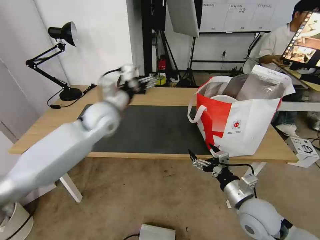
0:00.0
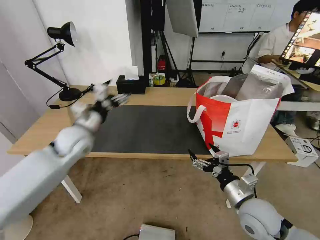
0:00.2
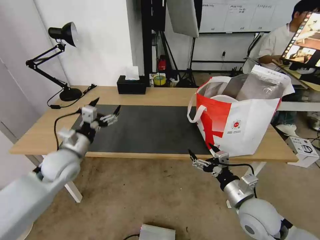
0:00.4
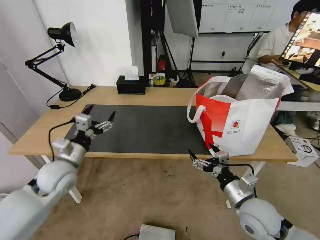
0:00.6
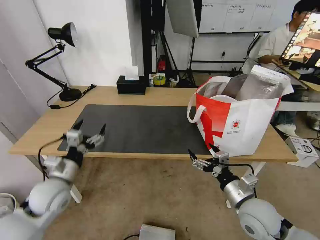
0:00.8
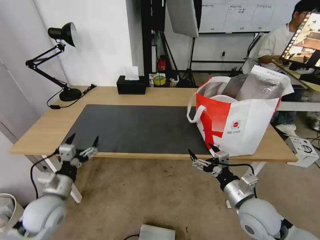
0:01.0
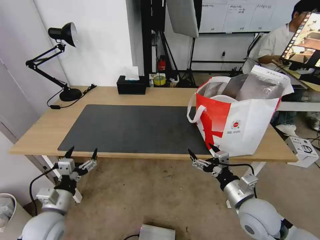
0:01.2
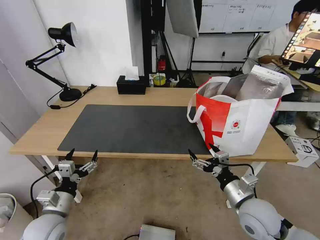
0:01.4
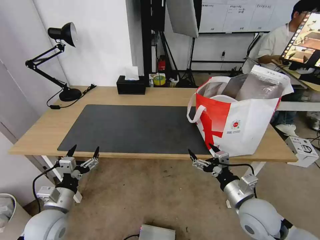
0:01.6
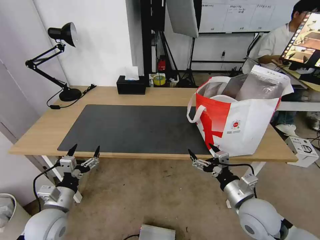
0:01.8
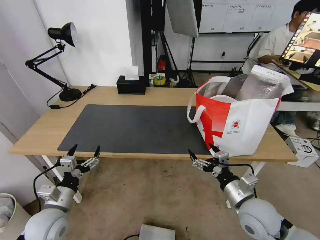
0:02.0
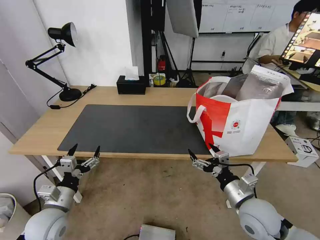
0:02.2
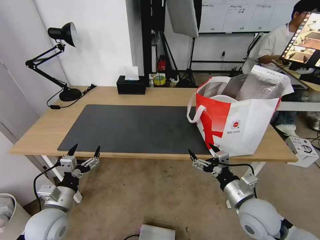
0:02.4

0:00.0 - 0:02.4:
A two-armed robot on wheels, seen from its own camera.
Task of the whole recording: Pick up the trash from the table and place it into the takeout bag.
0:00.0 - 0:01.2: The left gripper is displaced backward, downward and to the left by about 35 cm.
0:01.2 - 0:02.4: Both grippers stay put.

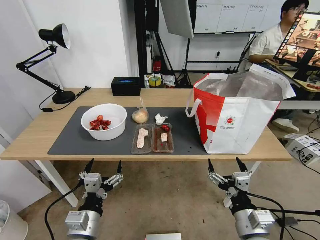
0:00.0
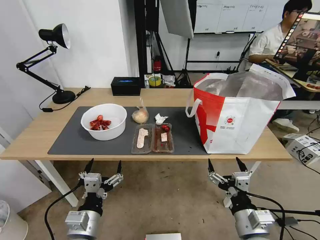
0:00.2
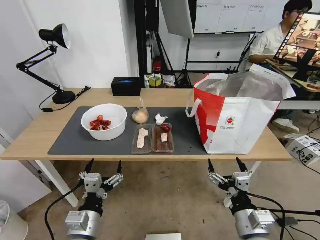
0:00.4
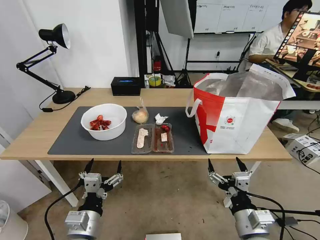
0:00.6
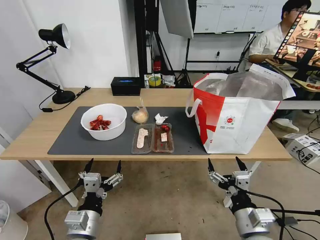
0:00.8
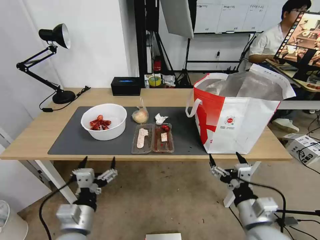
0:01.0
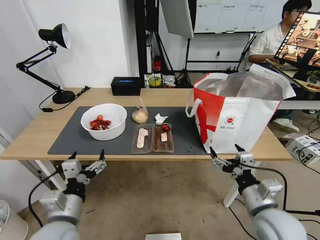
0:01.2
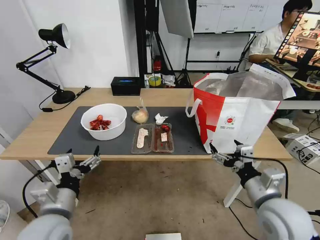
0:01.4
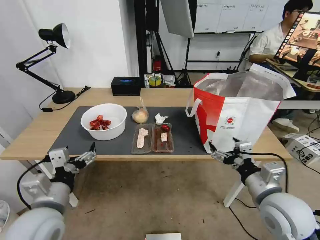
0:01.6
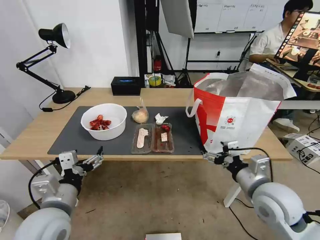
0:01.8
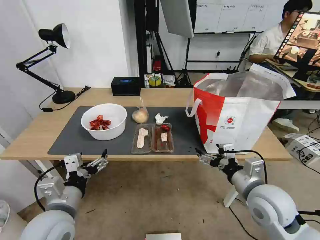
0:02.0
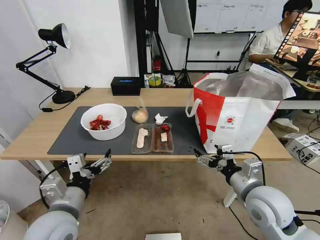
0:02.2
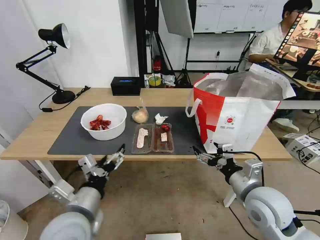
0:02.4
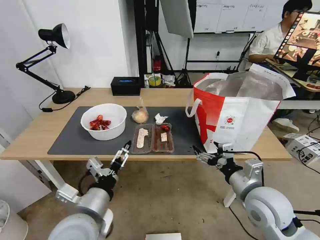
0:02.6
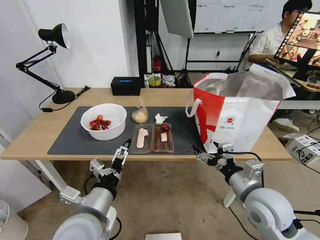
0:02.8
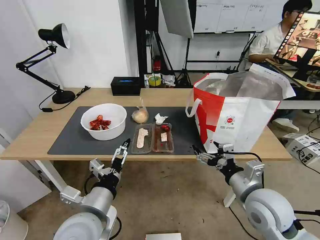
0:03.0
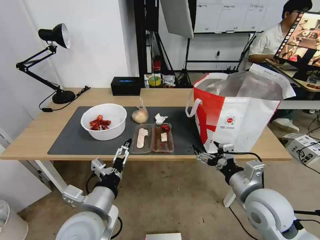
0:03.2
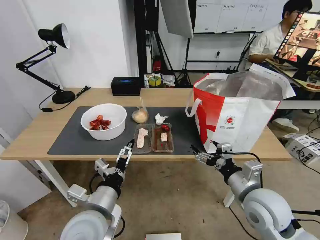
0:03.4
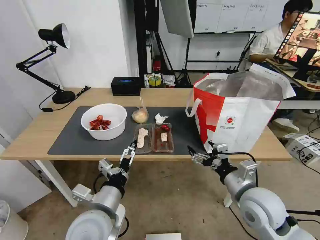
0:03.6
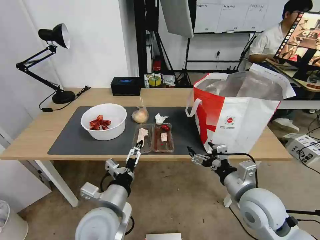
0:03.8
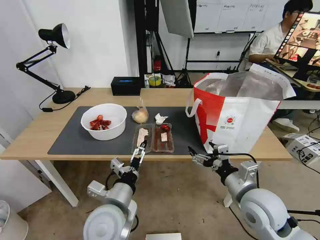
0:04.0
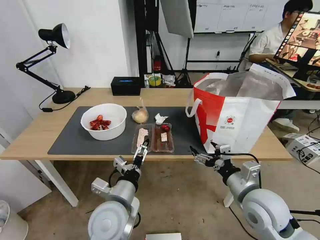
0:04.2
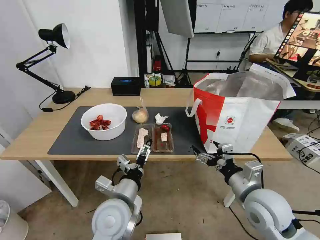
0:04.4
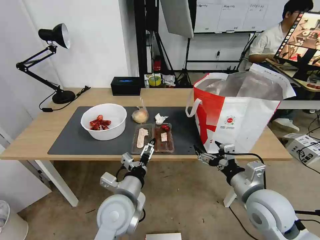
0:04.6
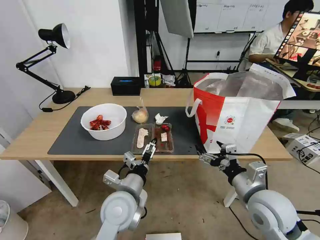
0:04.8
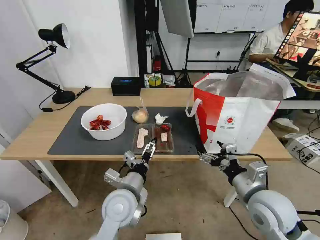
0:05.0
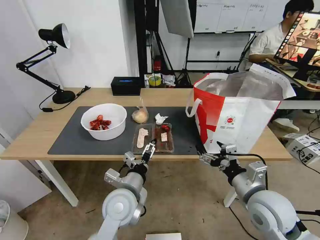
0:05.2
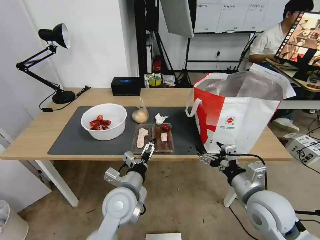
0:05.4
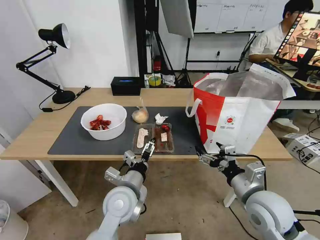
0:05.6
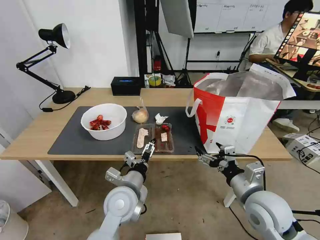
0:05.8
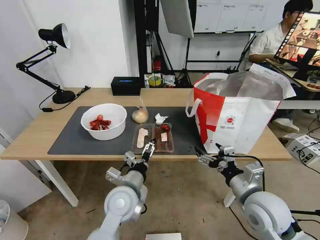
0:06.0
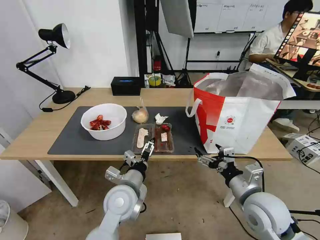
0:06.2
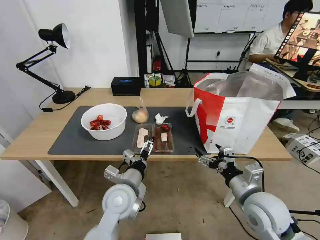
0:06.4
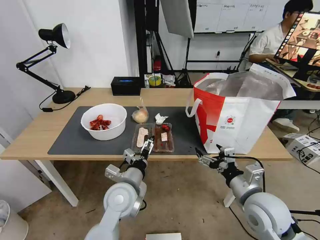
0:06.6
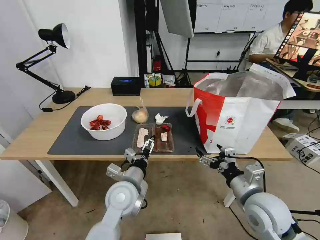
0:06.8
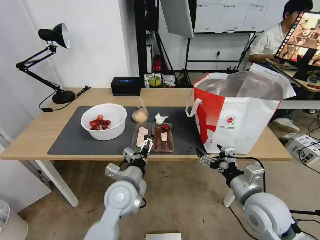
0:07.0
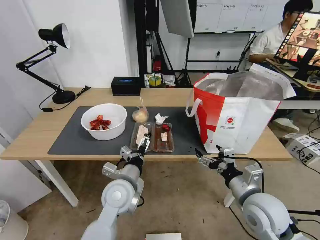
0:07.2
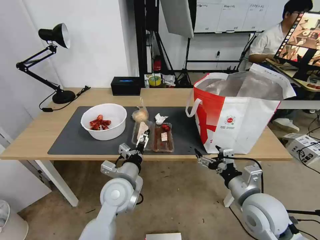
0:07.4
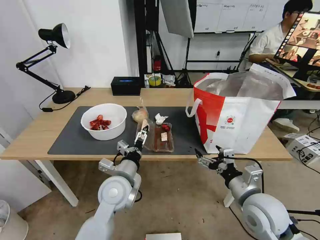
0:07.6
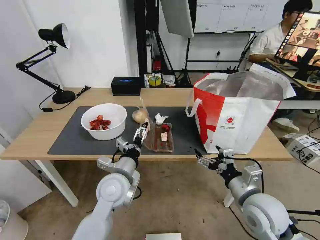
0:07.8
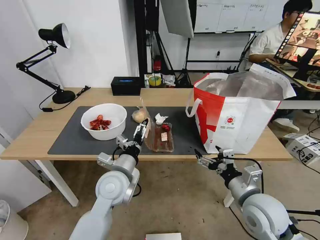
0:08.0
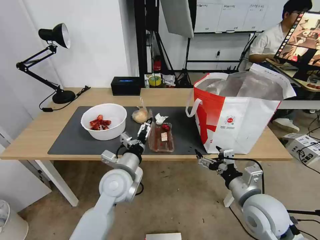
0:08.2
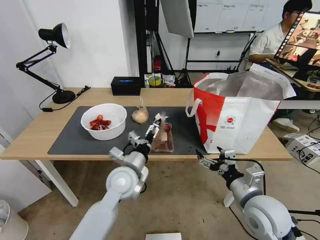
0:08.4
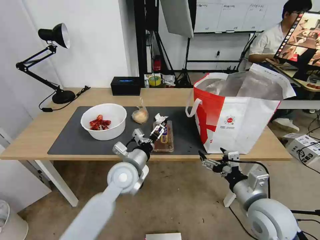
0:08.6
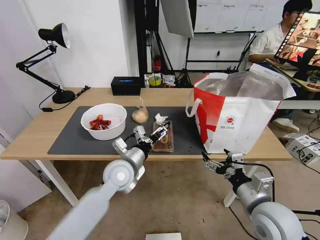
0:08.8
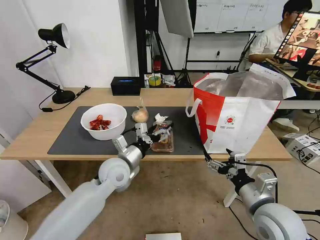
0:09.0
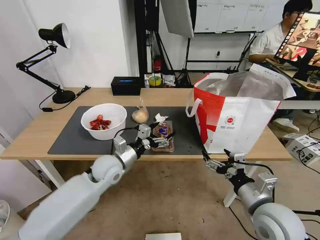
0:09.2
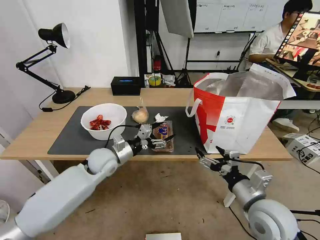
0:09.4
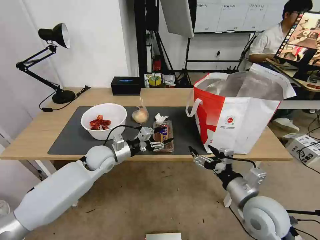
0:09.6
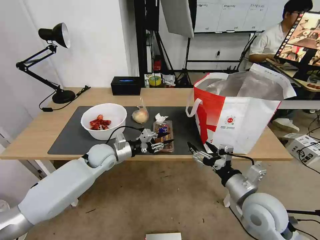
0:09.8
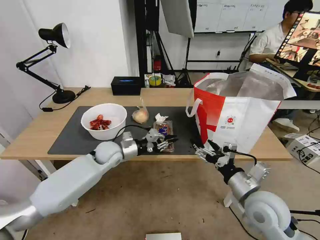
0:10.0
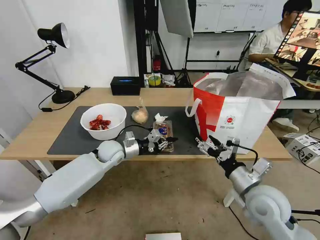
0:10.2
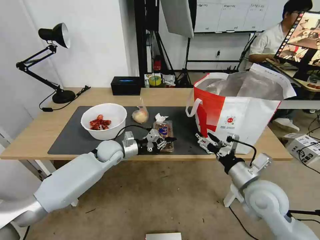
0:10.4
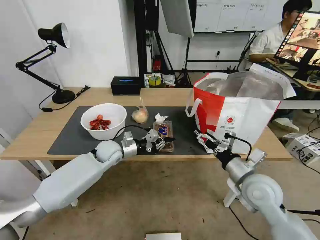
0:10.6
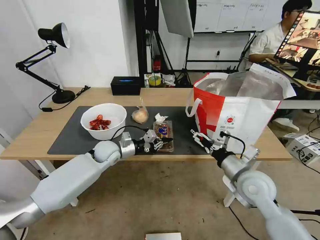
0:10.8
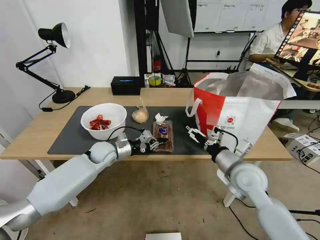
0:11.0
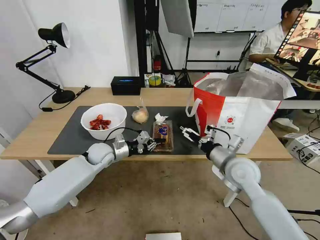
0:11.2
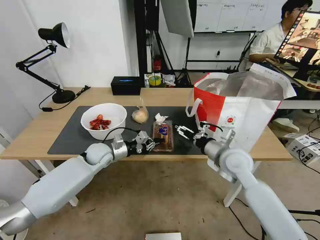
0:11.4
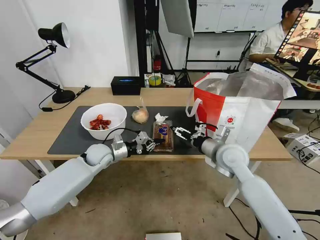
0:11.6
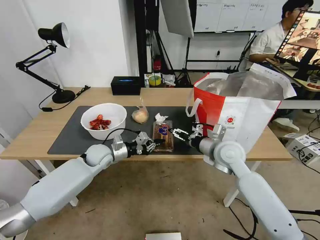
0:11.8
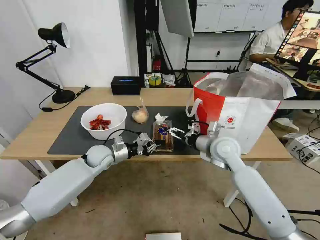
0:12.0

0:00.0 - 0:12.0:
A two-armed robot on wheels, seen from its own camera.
Task of the whole recording: Pick up the trash from the table and place it into the takeout bag.
0:01.6 - 0:03.0: The left gripper shifts about 10 cm to the right.
0:03.0 - 0:04.4: The left gripper shifts about 5 cm to the right.
0:04.4 - 0:06.0: The left gripper ends up about 5 cm from where it was.
0:06.0 - 0:07.6: The grippers move only a little.
0:07.6 - 0:09.0: The left gripper heads forward, covering approximately 5 cm.
0:09.0 - 0:10.4: The left gripper moves forward, about 10 cm, and closes. Meanwhile the right gripper shifts some 5 cm forward.
0:10.4 - 0:12.0: The right gripper shifts some 15 cm forward and to the left.

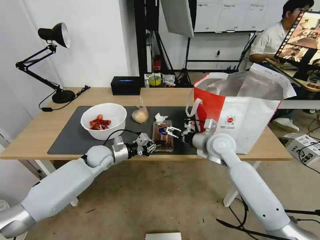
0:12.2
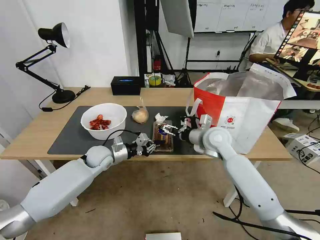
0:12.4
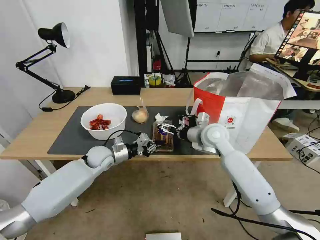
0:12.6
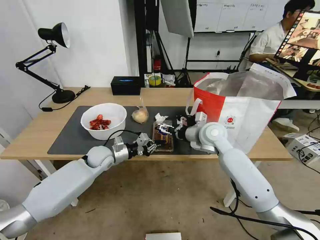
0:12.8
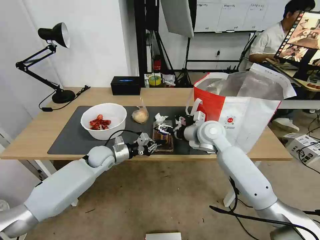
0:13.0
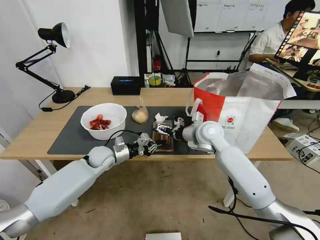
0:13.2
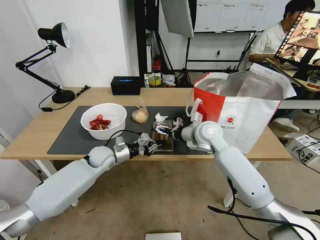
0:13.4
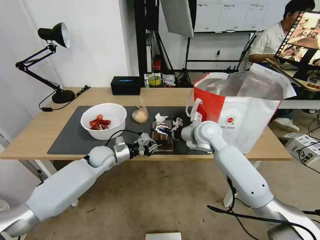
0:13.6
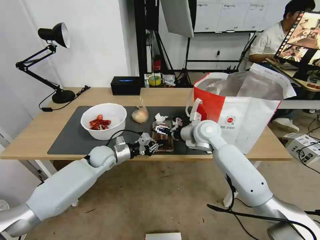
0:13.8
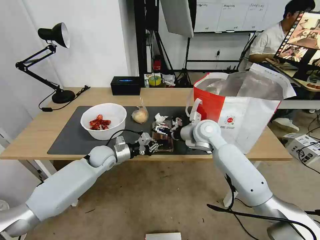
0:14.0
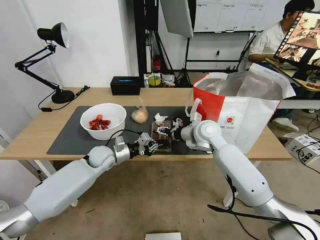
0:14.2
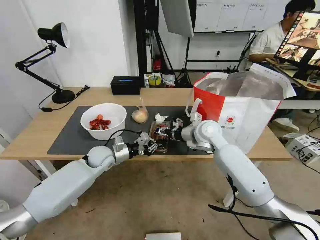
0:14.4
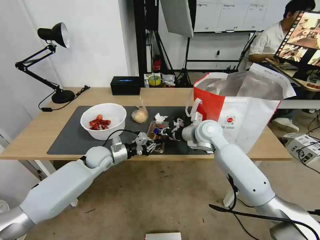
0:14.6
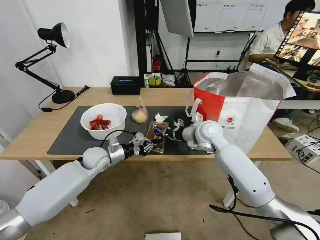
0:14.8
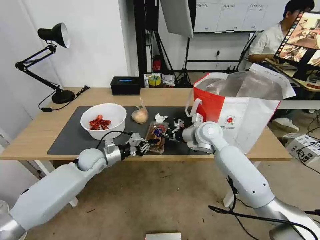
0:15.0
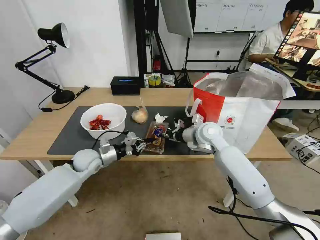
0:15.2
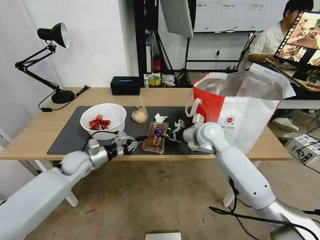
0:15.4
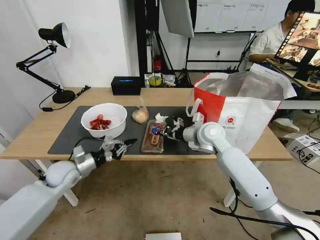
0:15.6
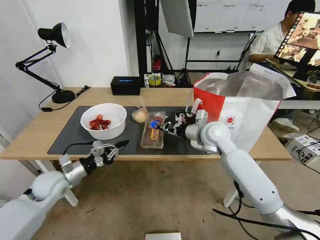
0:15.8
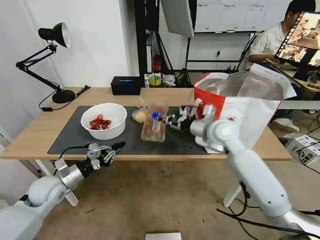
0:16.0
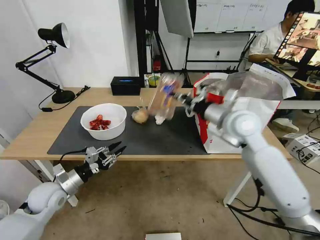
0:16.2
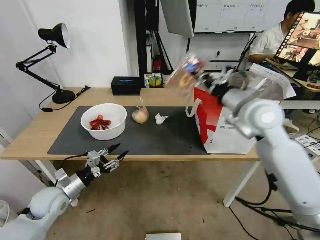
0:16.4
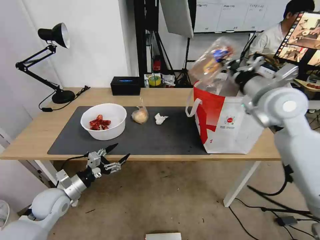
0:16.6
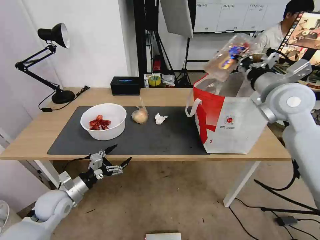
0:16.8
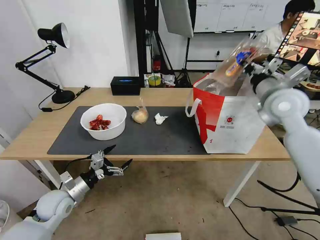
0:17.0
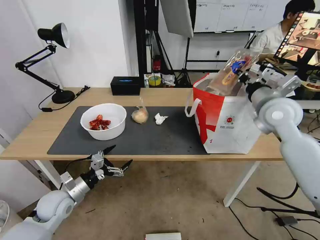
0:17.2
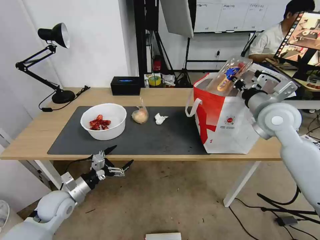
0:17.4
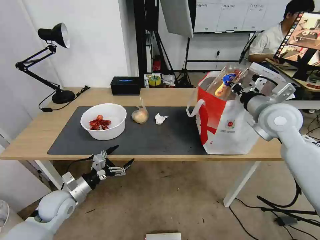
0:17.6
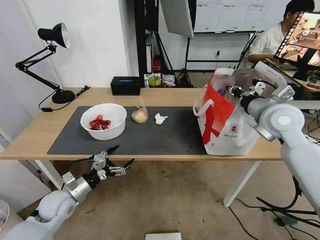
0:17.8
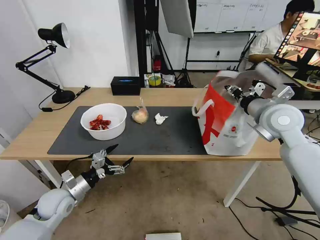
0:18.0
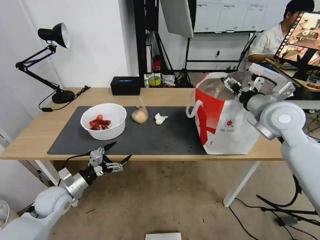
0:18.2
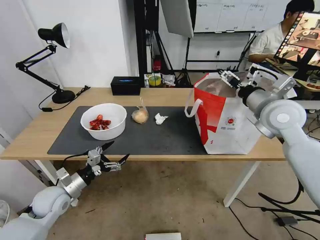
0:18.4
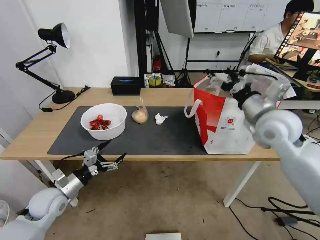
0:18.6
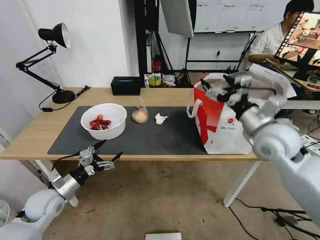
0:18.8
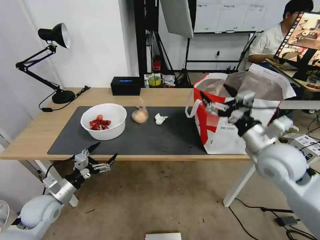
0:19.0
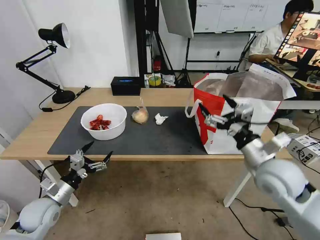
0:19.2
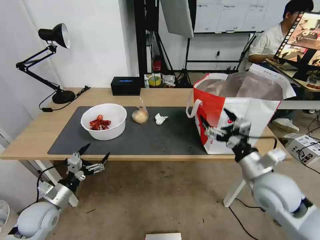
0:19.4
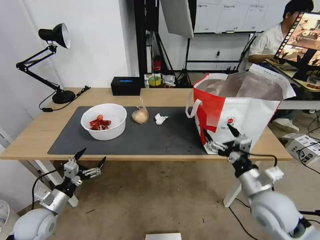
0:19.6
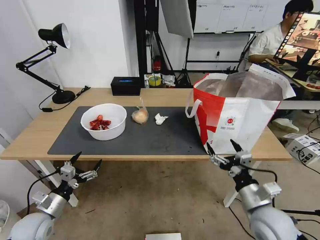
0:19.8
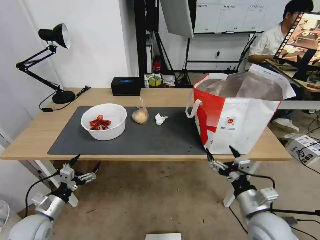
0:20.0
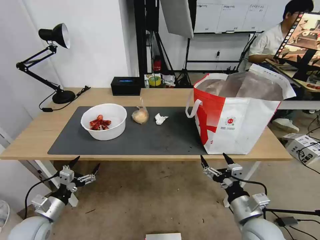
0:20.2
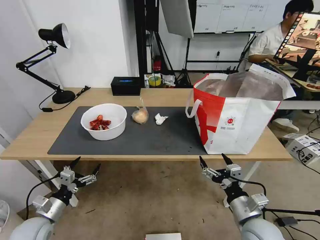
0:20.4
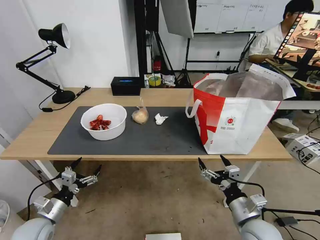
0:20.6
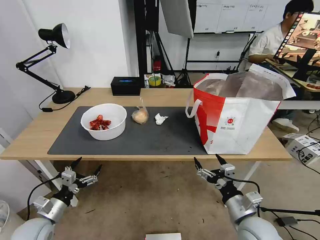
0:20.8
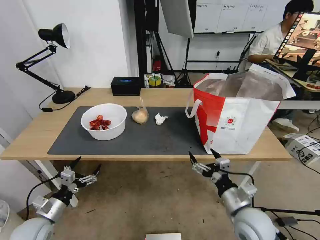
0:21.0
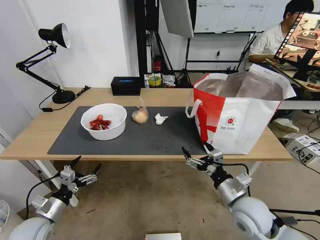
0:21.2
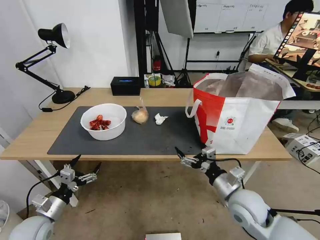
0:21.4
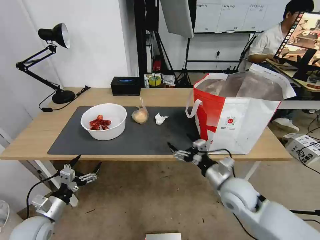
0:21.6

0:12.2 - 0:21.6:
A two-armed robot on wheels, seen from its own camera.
Task of the whole recording: Pick up the trash from the table and place it into the takeout bag.
0:12.2 - 0:13.8: The right gripper ends up some 5 cm from where it was.
0:13.8 - 0:15.4: The left gripper travels to the left by roughly 10 cm. The right gripper closes up.
0:15.4 - 0:17.0: The left gripper moves backward, some 15 cm, and opens its fingers. Meanwhile the right gripper shifts some 20 cm to the right and upward.
0:17.0 - 0:18.4: The right gripper opens its fingers.
0:18.4 - 0:20.0: The right gripper shifts about 30 cm downward and backward. Meanwhile the left gripper moves backward, about 5 cm.
0:20.0 - 0:21.6: The right gripper shifts roughly 10 cm forward and to the left.
